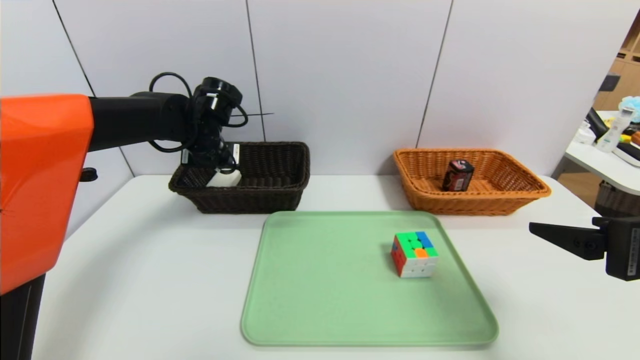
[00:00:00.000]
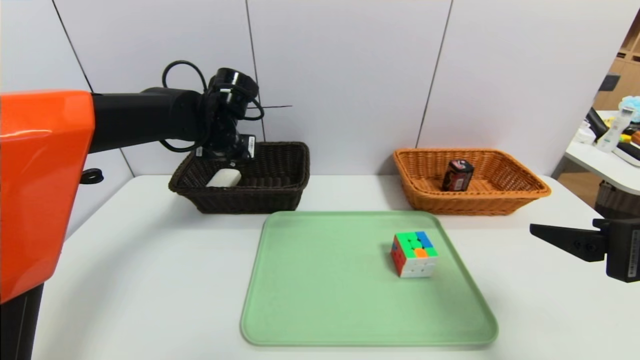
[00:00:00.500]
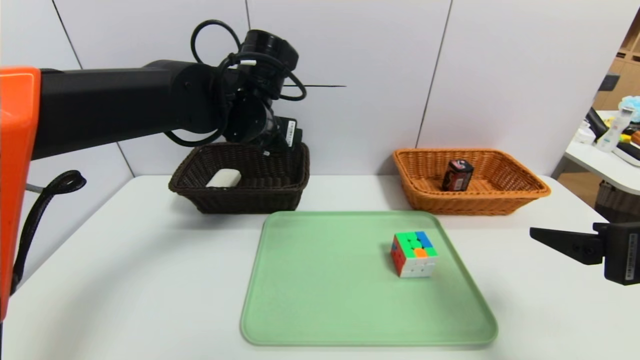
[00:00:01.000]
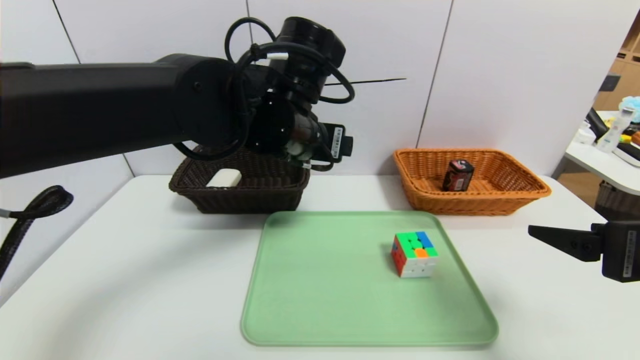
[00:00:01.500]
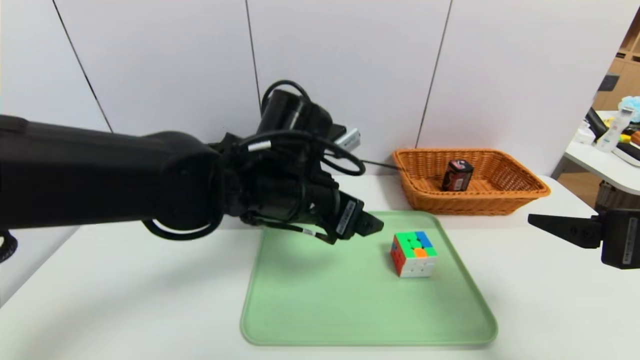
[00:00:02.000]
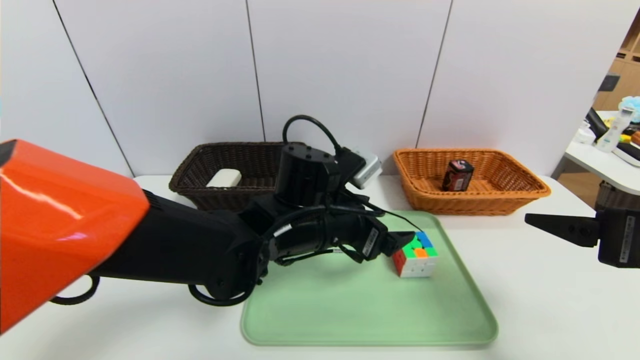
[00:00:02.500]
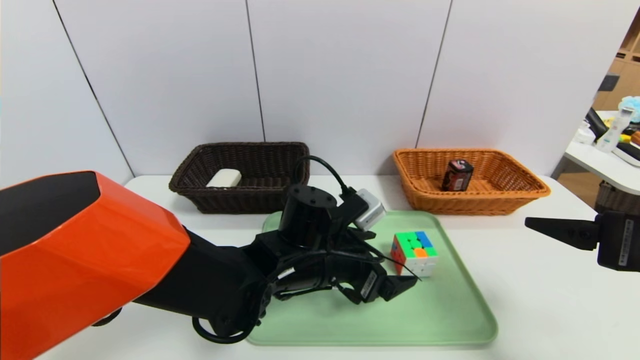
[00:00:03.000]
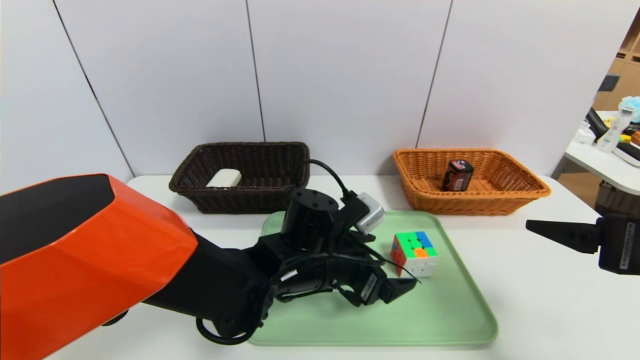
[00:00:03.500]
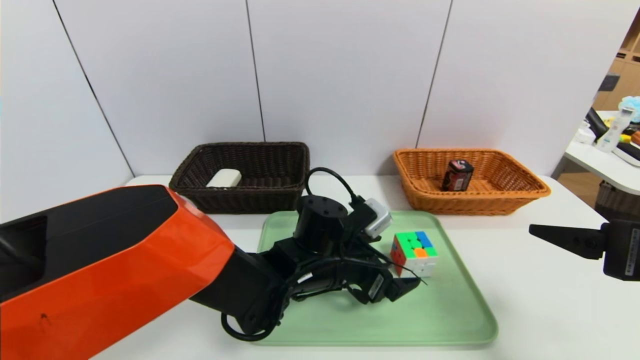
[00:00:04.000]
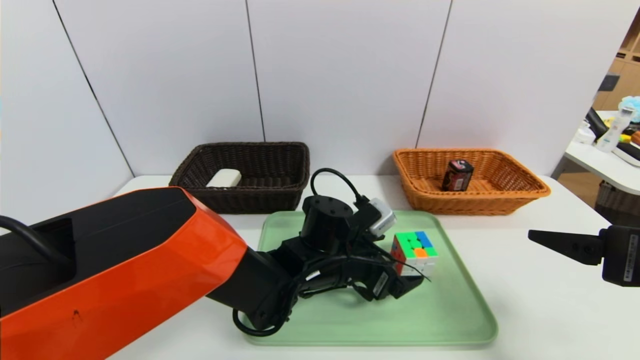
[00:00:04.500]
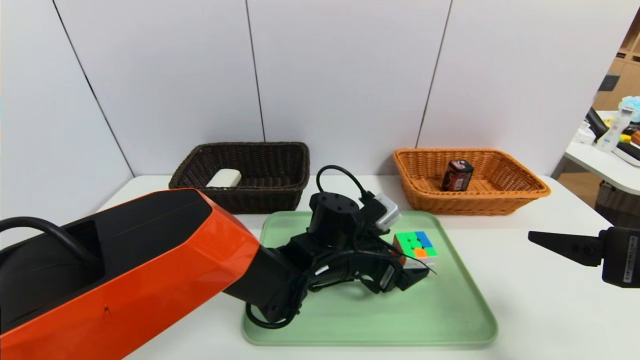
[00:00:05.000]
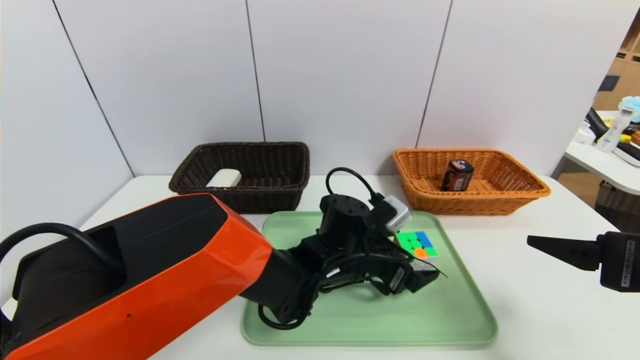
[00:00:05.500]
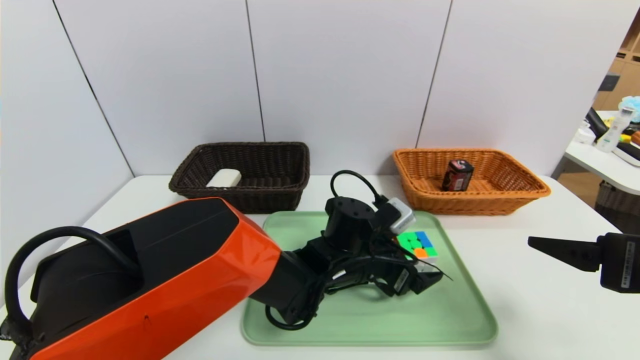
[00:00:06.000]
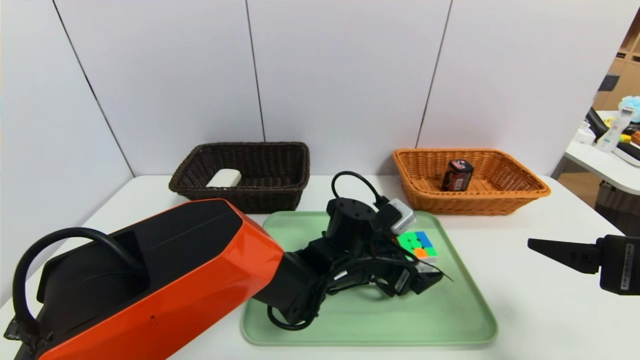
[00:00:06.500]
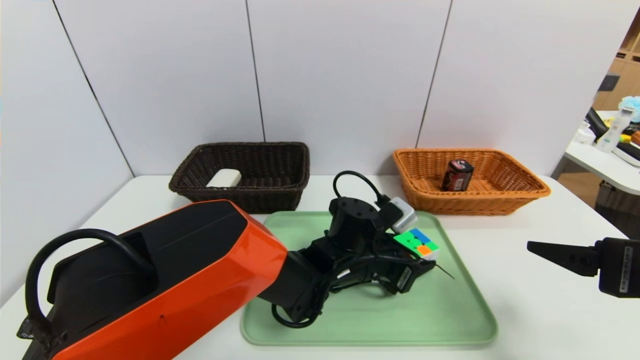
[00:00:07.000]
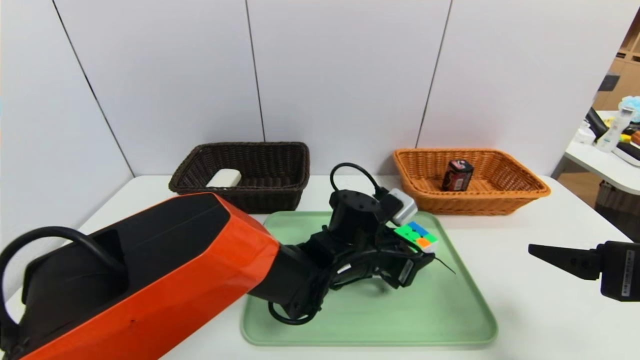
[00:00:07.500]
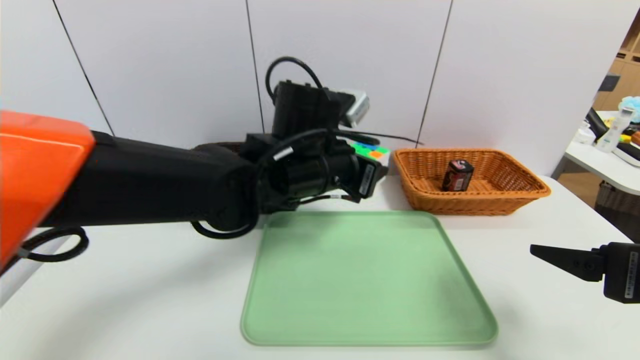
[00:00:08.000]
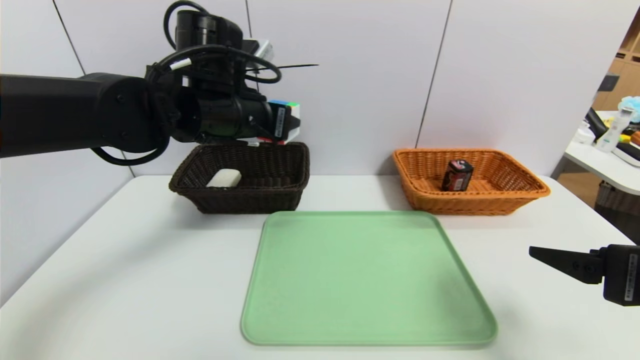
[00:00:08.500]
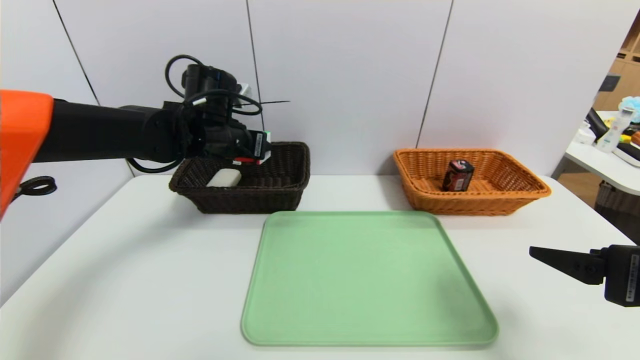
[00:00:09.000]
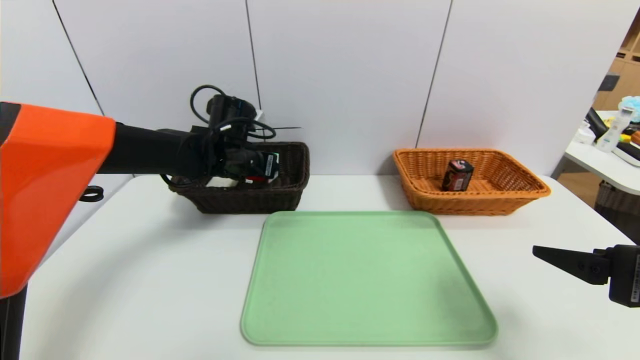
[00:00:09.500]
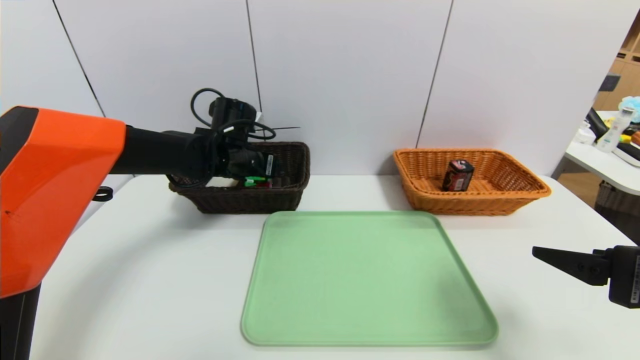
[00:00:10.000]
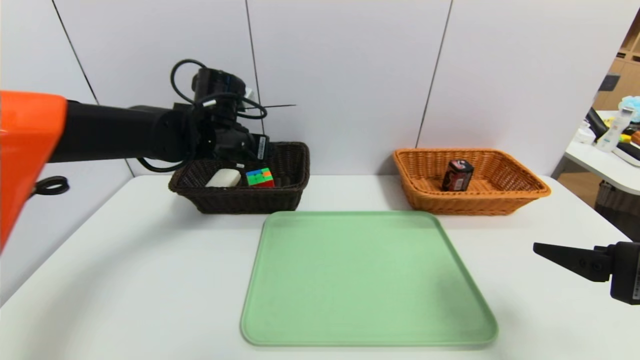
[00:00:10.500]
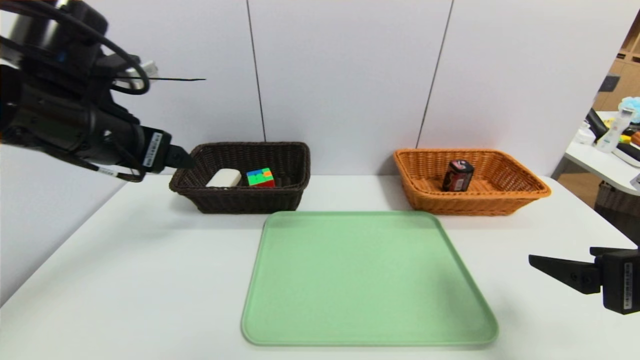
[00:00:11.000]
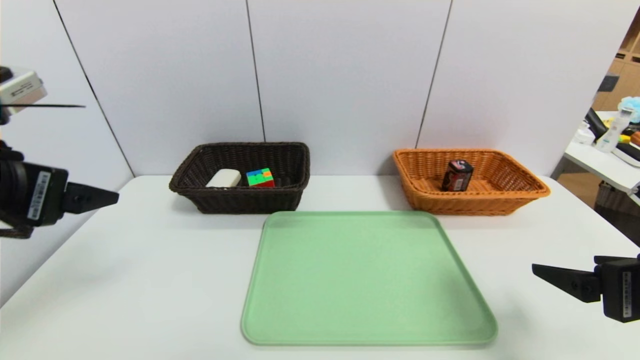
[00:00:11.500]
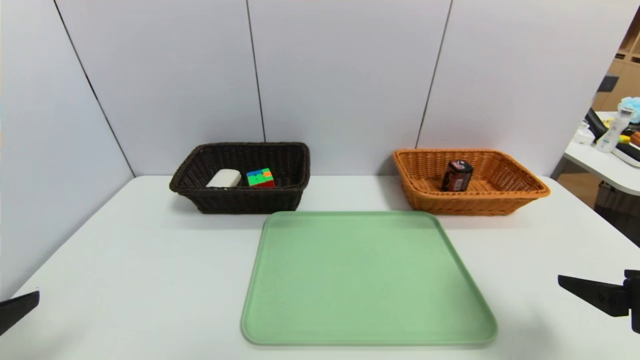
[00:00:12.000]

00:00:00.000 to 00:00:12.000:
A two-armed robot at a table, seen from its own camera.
Task of the whole recording: place the food in the right basket with the right gripper, and place the non food items in the left basket with the left gripper.
Step, 00:00:01.000 to 00:00:10.000: Grasp the rubiks cube and put it in the left basket.
00:00:00.000 to 00:00:02.000: The left gripper is displaced backward and to the right by some 20 cm.
00:00:02.000 to 00:00:04.000: The left gripper travels downward by some 15 cm.
00:00:06.000 to 00:00:08.000: The left gripper goes some 15 cm upward and to the left, and closes its fingers.
00:00:08.000 to 00:00:10.000: The left gripper shifts approximately 20 cm to the left and forward, and opens.
00:00:10.000 to 00:00:12.000: The left gripper shifts some 40 cm backward and to the left, and opens its fingers.

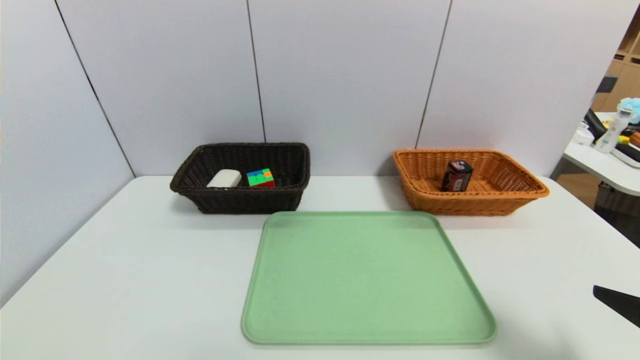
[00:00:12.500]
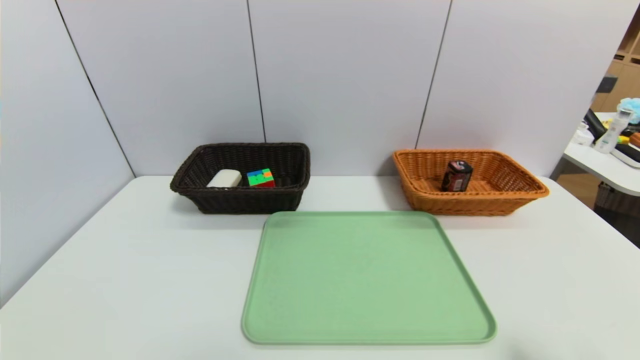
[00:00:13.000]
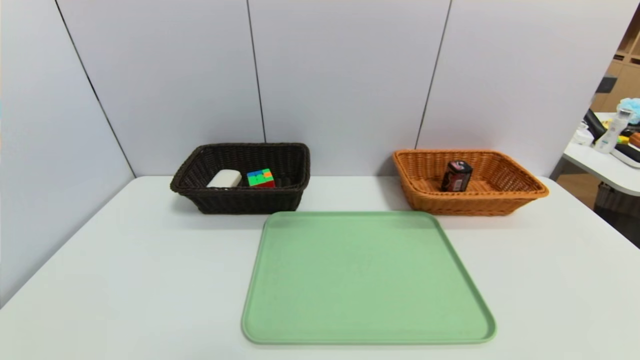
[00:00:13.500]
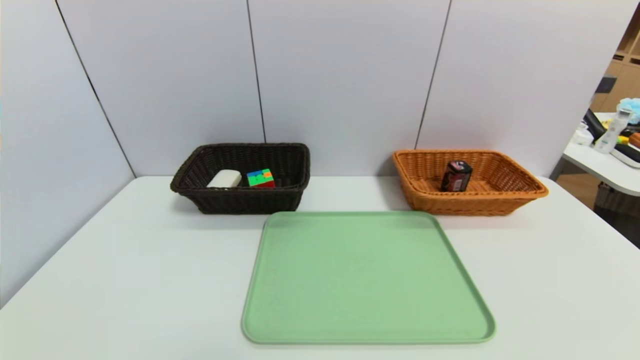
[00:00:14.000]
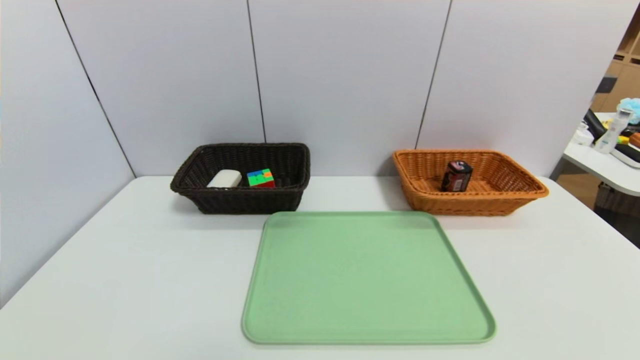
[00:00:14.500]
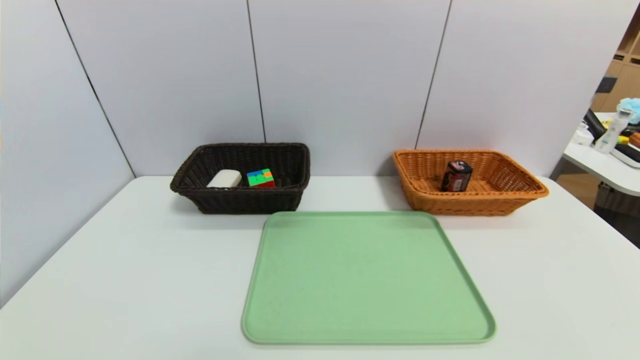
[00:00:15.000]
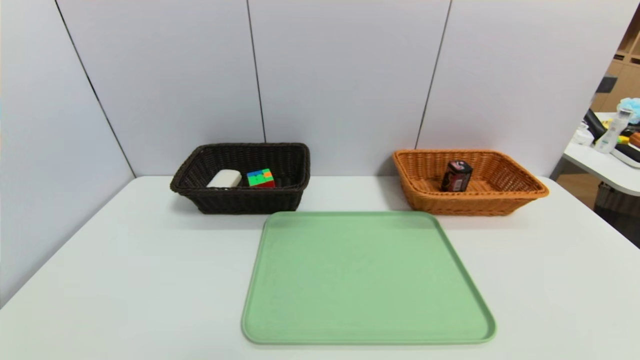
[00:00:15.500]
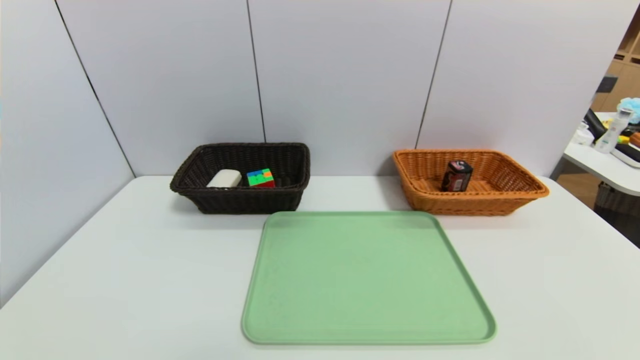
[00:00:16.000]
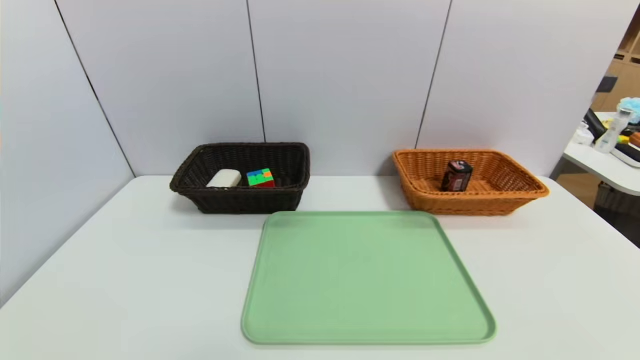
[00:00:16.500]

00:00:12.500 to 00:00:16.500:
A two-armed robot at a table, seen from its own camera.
Task of the whole recording: place the food in the right basket with the right gripper, and place the non food items in the left basket with the left gripper.
00:00:12.500 to 00:00:14.500: The right gripper heads backward and downward, covering about 15 cm.

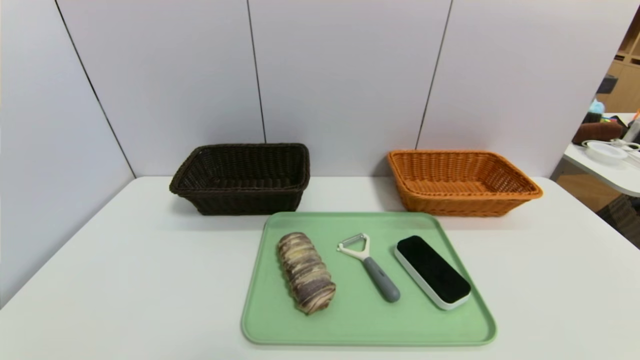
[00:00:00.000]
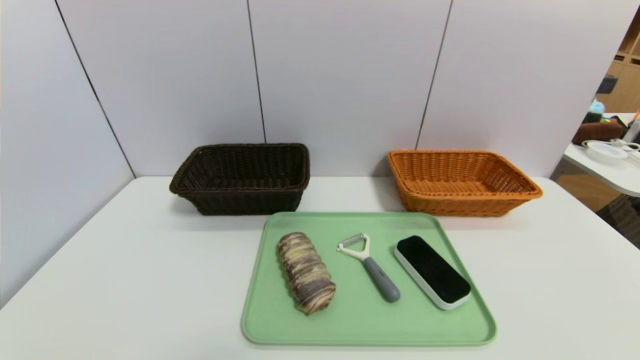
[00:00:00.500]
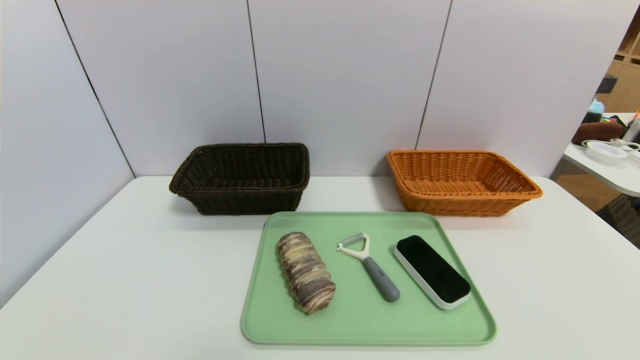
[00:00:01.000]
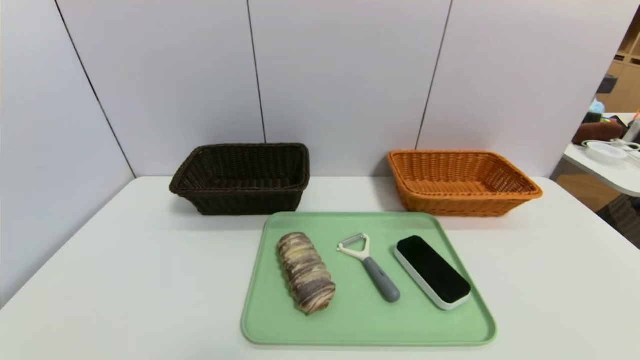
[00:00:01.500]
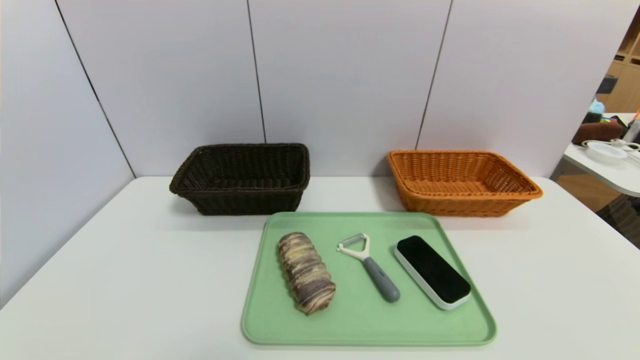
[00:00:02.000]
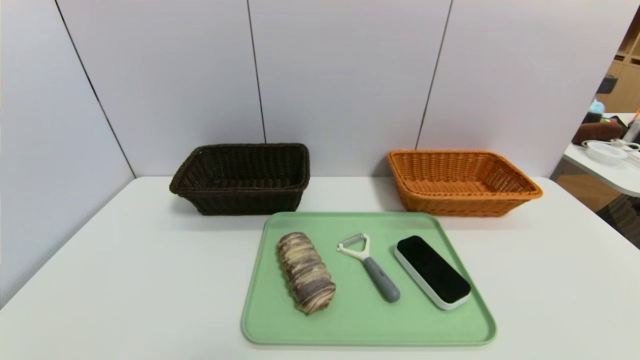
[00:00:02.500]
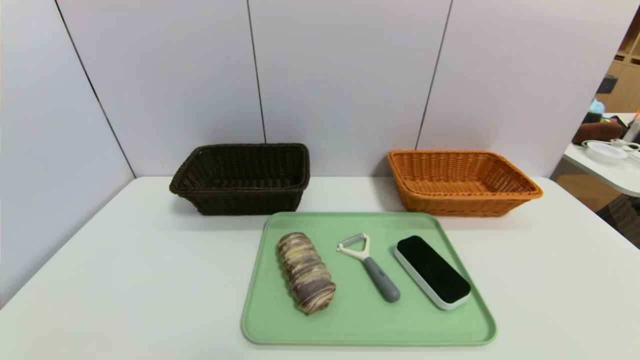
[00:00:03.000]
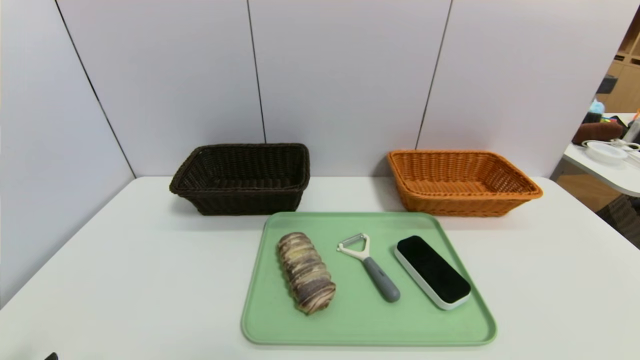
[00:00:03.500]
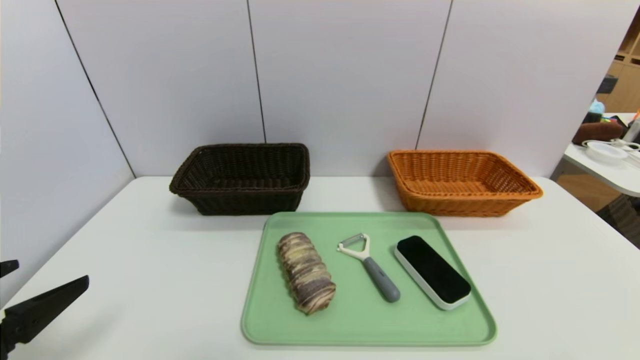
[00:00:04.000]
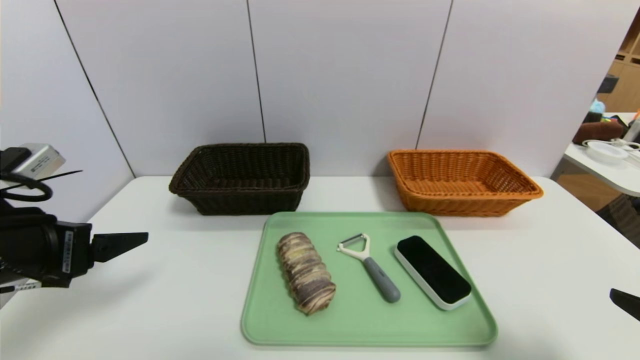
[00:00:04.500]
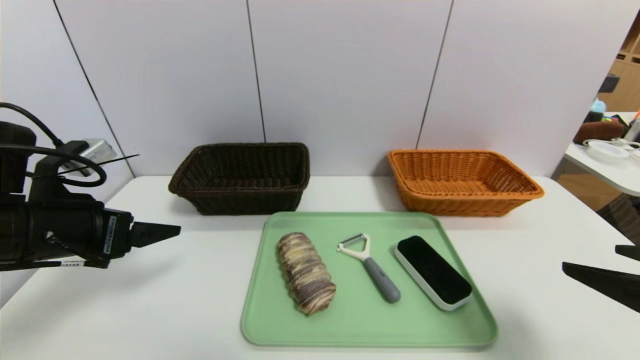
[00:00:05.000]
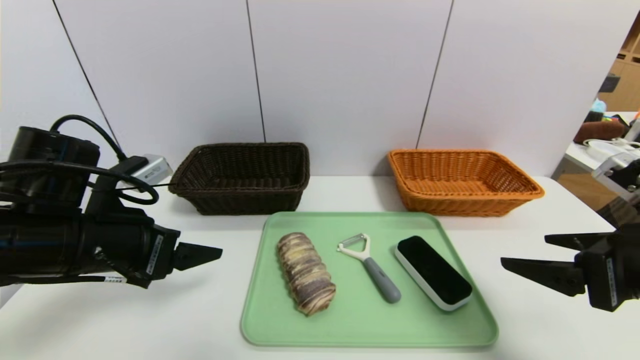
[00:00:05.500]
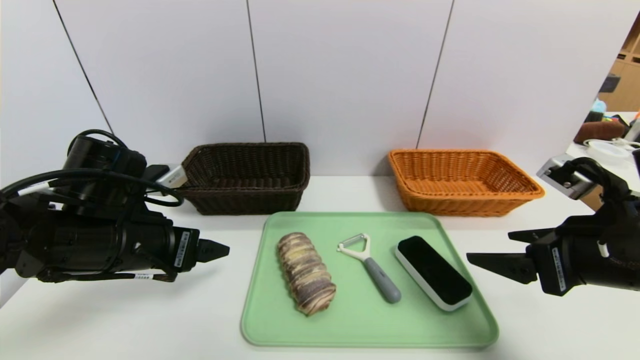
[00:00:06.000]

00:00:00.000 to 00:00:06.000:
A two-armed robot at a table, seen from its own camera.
Task of the whole recording: place the food in the right basket with the right gripper, and place the non food items in the left basket with the left gripper.
00:00:00.000 to 00:00:02.000: Both grippers stay about where they are.
00:00:02.000 to 00:00:04.000: The left gripper goes about 15 cm upward and forward.
00:00:04.000 to 00:00:06.000: The right gripper shifts some 20 cm forward; the left gripper goes about 15 cm forward and to the right.
